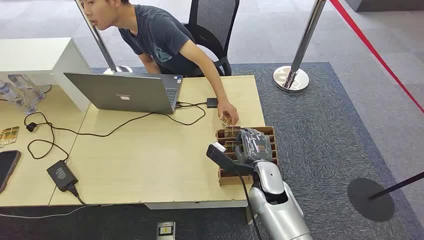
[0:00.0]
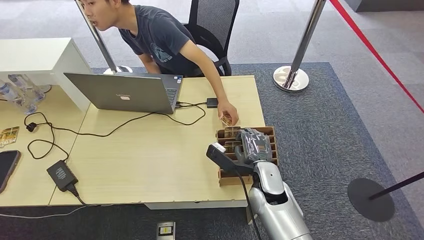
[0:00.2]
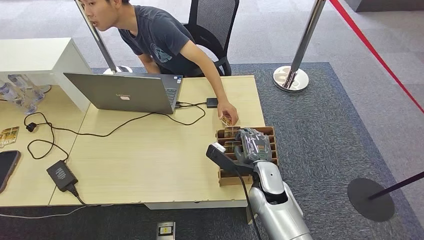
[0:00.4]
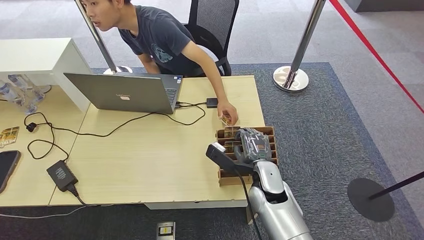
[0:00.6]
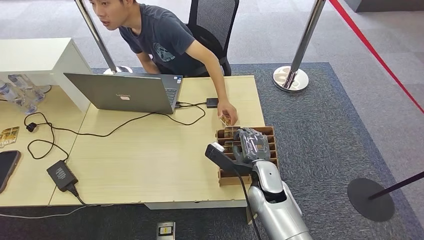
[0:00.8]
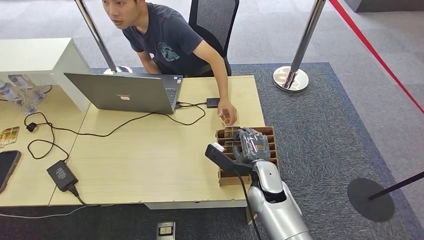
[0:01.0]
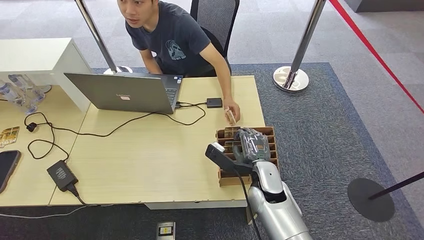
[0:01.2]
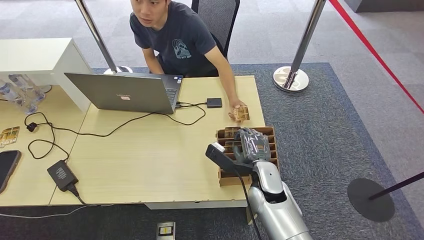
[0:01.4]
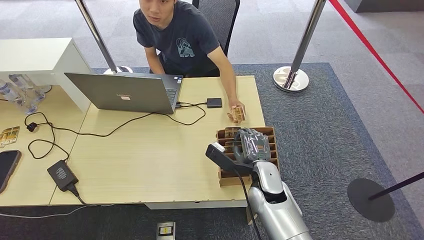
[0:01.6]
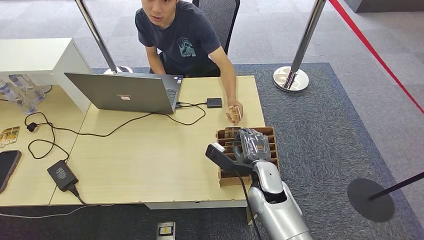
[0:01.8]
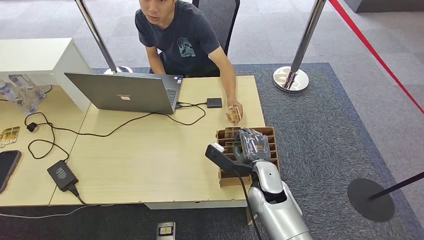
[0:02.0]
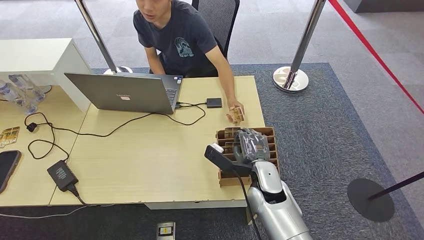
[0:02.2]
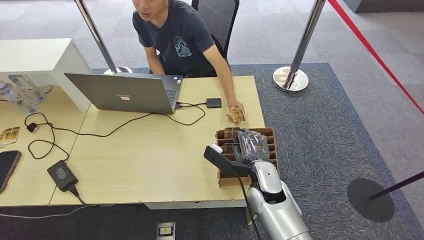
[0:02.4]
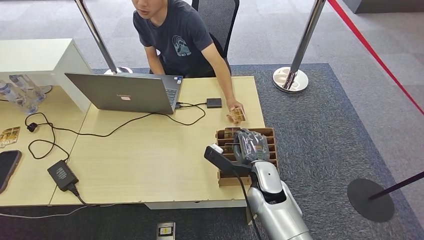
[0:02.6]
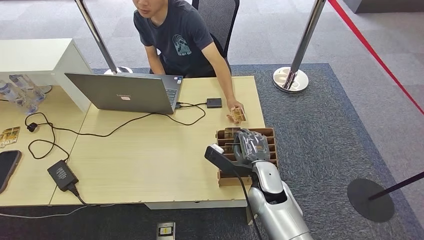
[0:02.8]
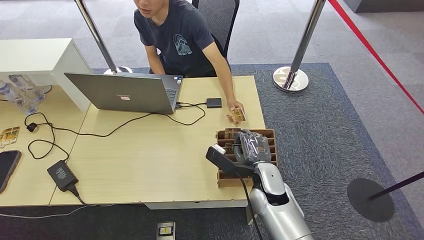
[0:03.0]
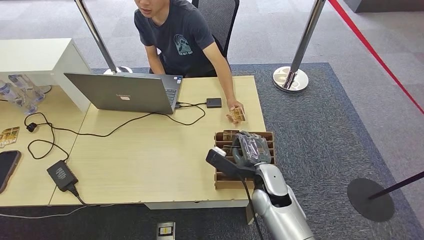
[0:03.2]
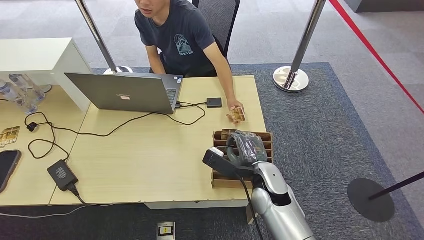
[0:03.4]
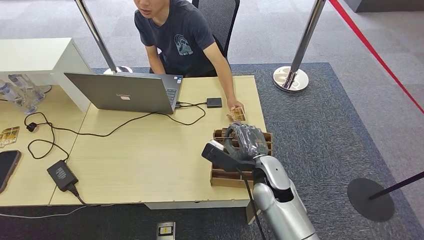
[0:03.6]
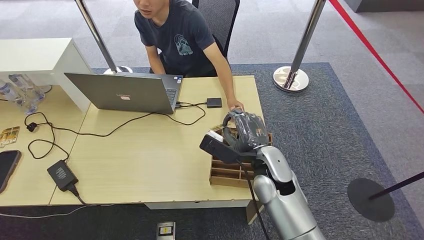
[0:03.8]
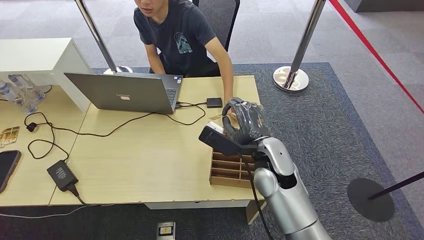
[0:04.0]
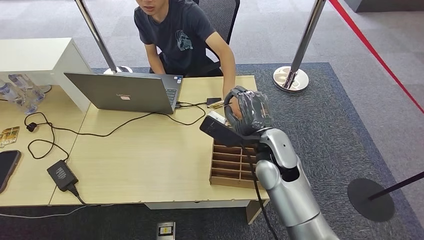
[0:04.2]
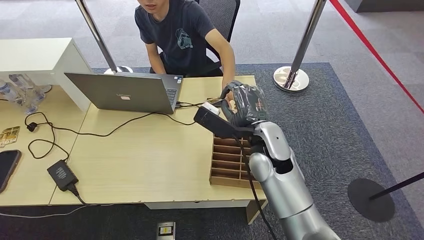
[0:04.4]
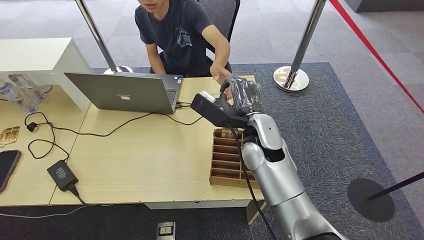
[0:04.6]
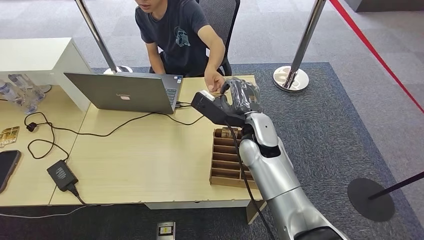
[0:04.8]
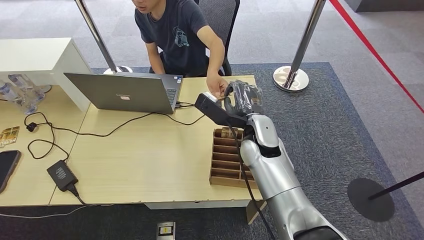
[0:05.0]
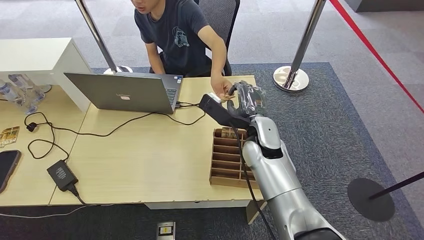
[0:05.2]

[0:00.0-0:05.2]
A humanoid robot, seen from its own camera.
Step, 0:00.0 to 0:03.6: Pick up the room card from the card holder.
Step, 0:03.8 to 0:05.2: Hand the room card to the target.
0:01.8 to 0:03.4: The hands stay close to where they were, moving slightly.
0:03.4 to 0:05.2: The right hand heads upward and forward, covering some 15 cm.
